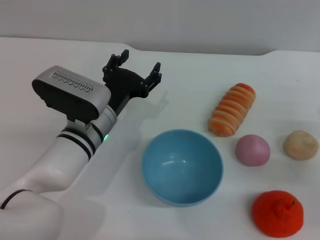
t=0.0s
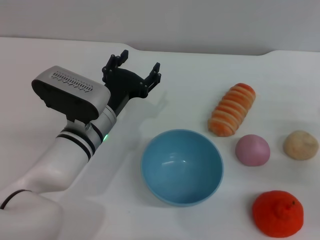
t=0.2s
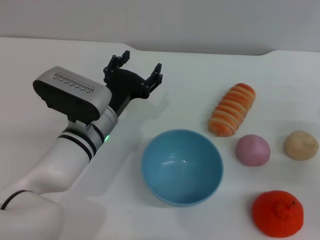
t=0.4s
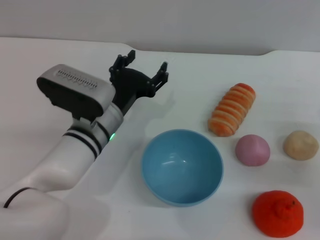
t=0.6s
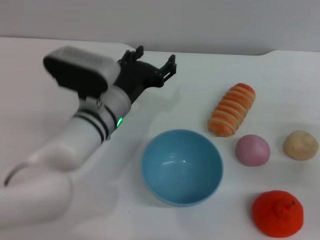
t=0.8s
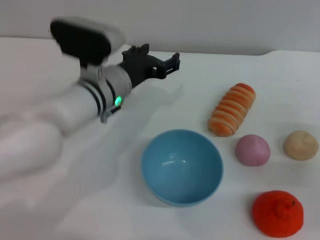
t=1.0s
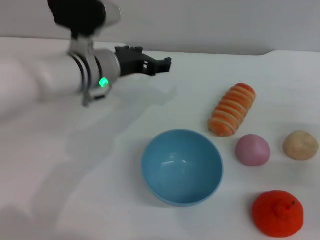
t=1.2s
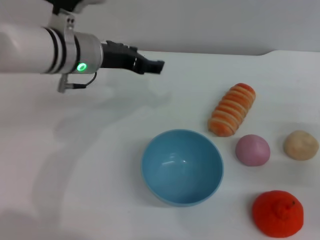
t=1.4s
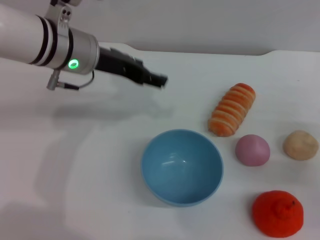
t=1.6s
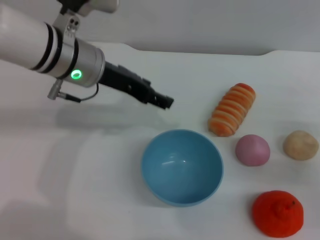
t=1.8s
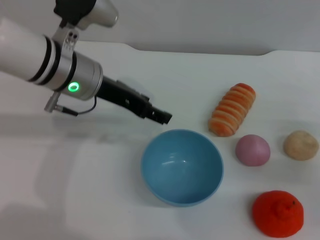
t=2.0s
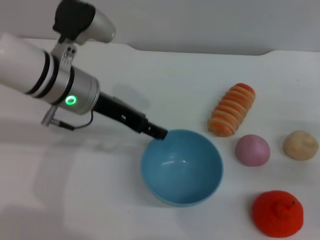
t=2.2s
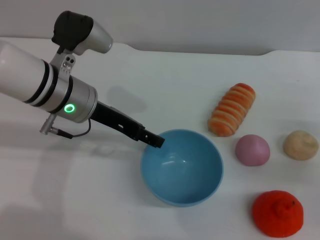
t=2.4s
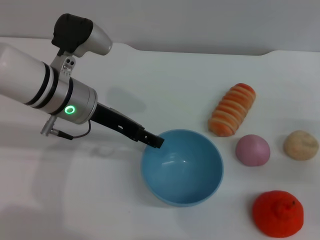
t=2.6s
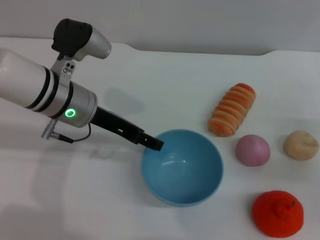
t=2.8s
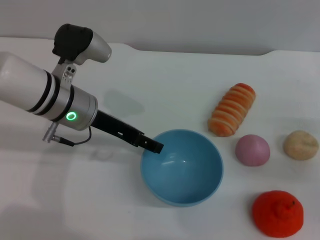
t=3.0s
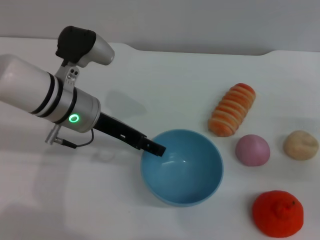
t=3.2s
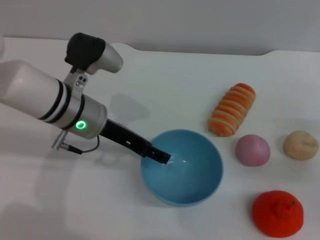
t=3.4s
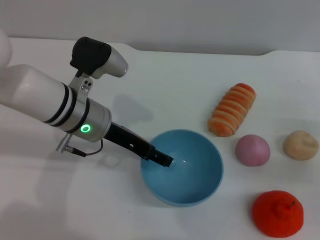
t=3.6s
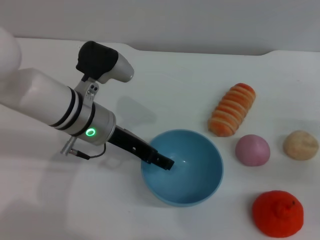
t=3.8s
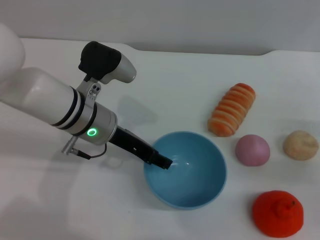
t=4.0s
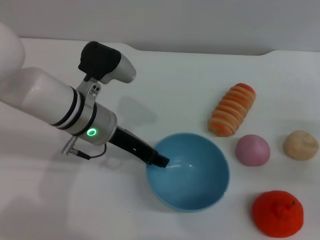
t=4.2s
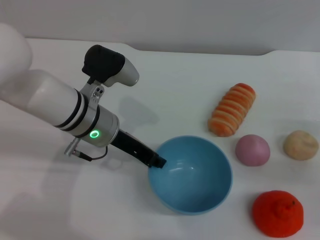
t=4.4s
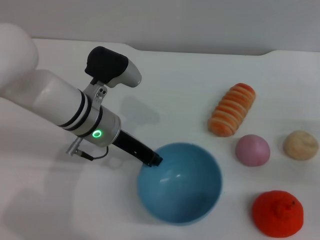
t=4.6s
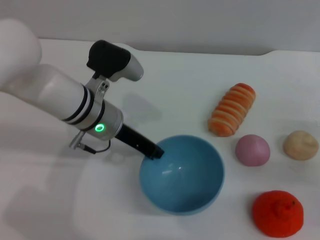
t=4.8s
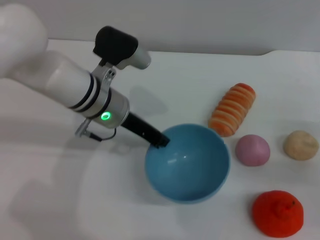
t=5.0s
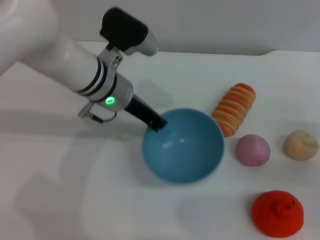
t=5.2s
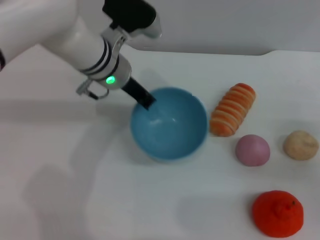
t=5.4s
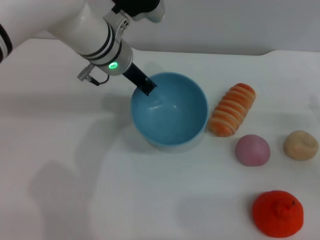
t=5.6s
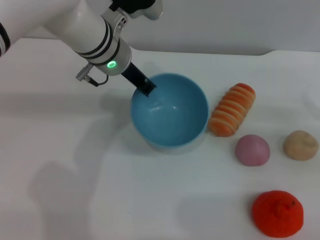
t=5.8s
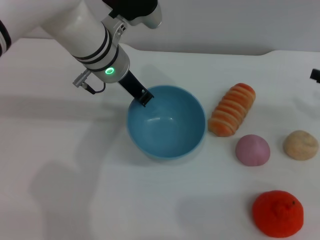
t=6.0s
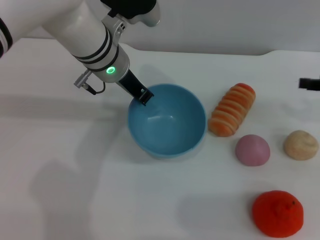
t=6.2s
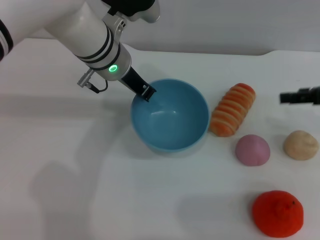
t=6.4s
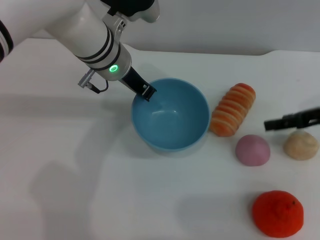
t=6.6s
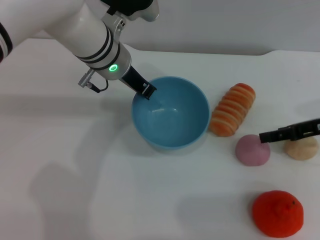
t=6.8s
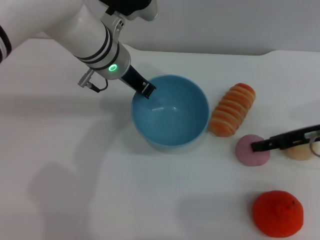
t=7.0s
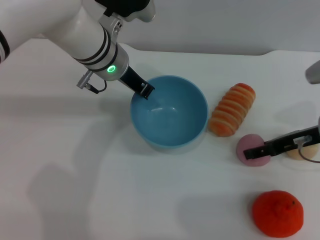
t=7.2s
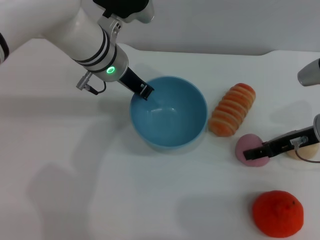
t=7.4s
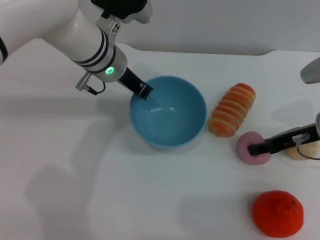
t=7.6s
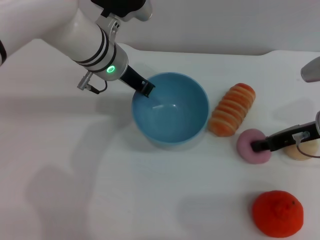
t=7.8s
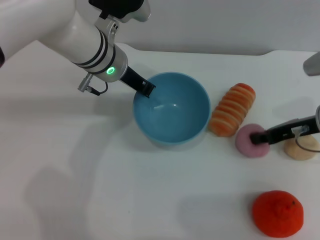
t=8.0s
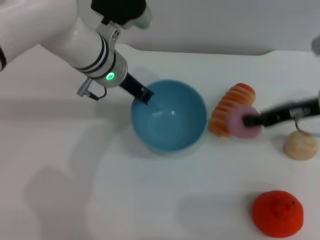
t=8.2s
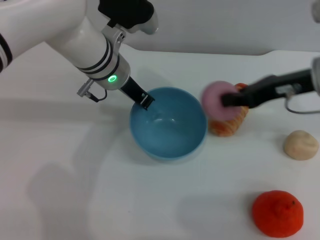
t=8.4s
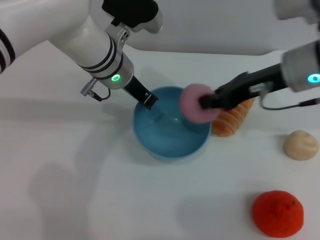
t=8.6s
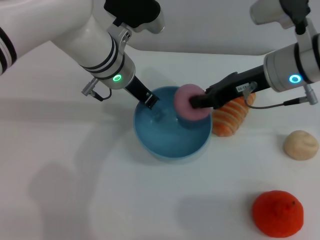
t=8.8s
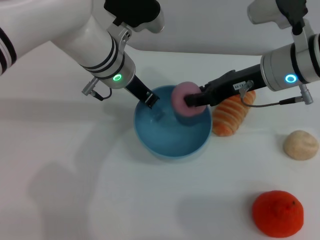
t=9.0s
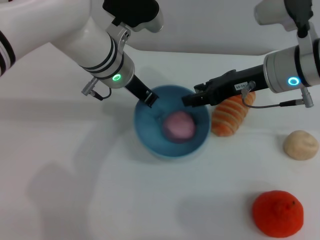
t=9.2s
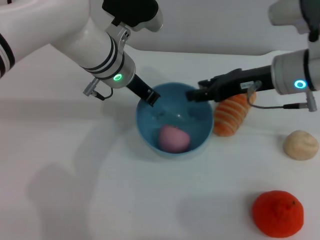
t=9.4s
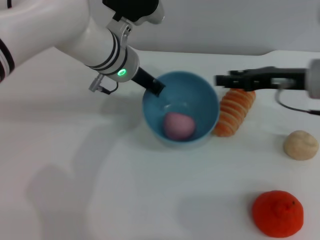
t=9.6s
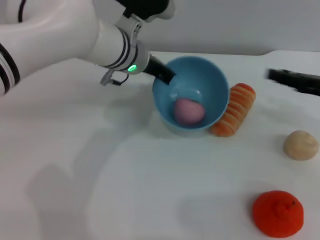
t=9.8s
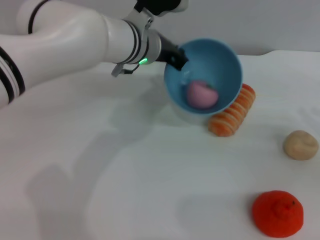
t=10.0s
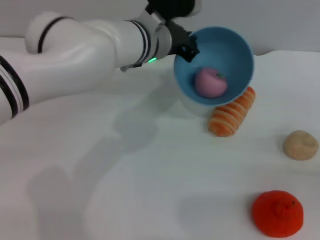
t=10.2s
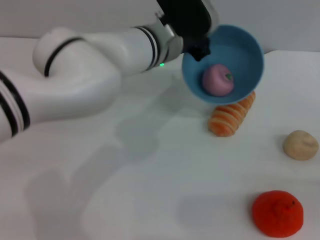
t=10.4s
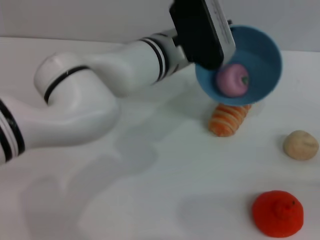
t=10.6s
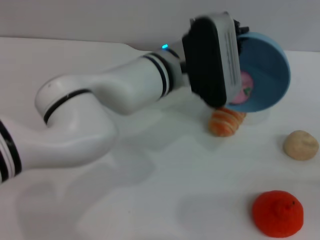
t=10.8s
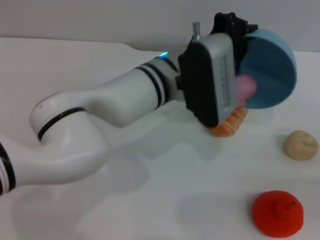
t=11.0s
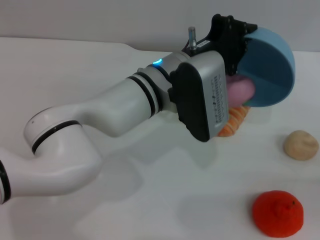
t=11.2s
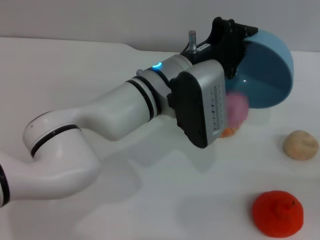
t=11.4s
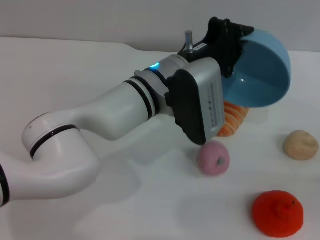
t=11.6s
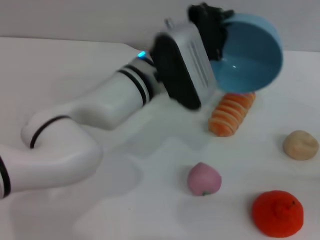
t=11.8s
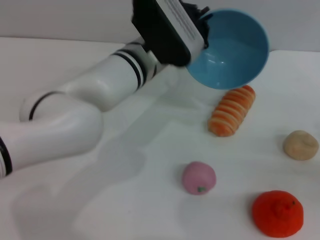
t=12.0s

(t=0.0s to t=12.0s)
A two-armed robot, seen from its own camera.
Task of the whole recording: put the peach into the blue bowl and pour it out repeatedly.
Step, t=0.0s - t=5.2s: Pick up the bowl with the left gripper.
Step, t=5.4s - t=8.2s: Pick up the peach with the right gripper.
Step, t=8.4s - t=9.4s: Place the peach into the bowl.
Step, t=9.6s - t=12.0s: Pour the peach out of bowl.
t=0.0s - t=1.6s: The left gripper moves upward and forward, about 15 cm.
t=1.6s - t=3.0s: The left gripper is displaced downward by approximately 5 cm.
t=3.0s - t=4.4s: The left gripper closes.
t=4.4s - t=6.0s: The right gripper moves upward and forward, roughly 10 cm. Meanwhile the left gripper heads forward and upward, covering some 10 cm, and closes.
t=6.0s - t=7.6s: The right gripper shifts roughly 10 cm to the left.
t=7.6s - t=9.0s: The right gripper shifts approximately 10 cm to the left and upward, and closes its fingers.
t=9.0s - t=10.4s: The left gripper travels to the right by about 5 cm; the right gripper goes about 30 cm to the right, backward and downward, and opens its fingers.

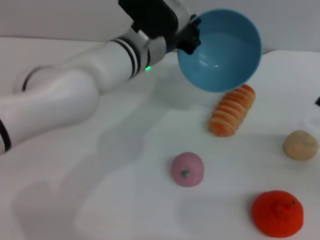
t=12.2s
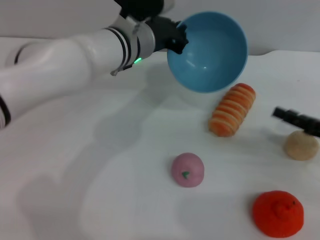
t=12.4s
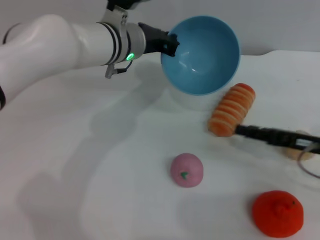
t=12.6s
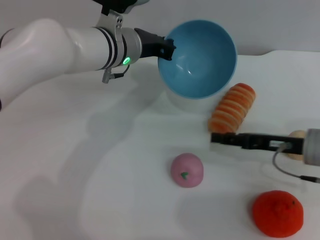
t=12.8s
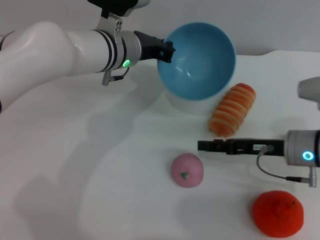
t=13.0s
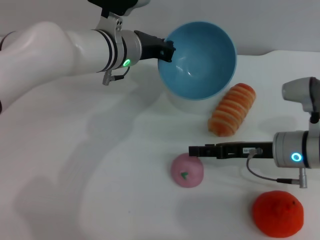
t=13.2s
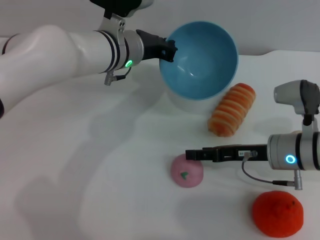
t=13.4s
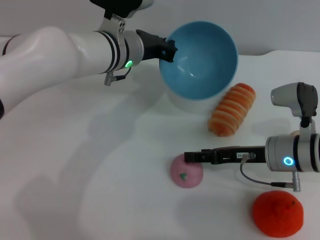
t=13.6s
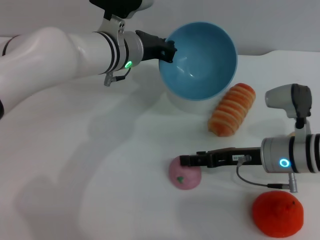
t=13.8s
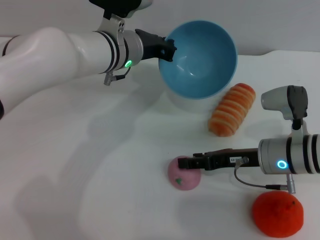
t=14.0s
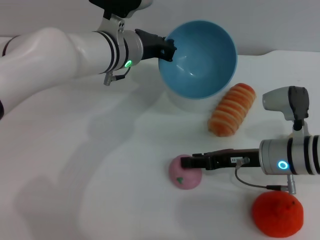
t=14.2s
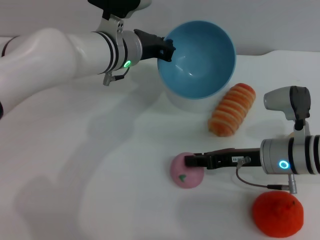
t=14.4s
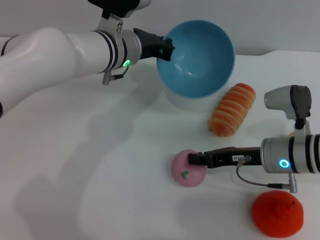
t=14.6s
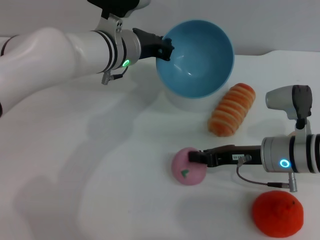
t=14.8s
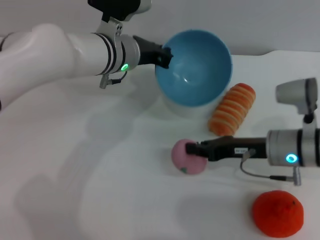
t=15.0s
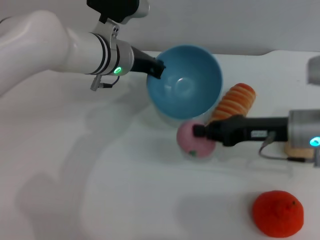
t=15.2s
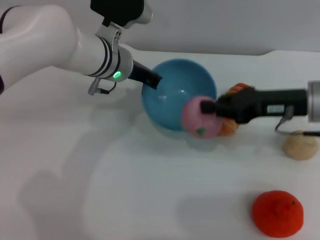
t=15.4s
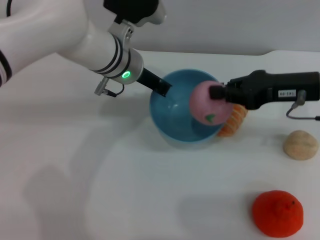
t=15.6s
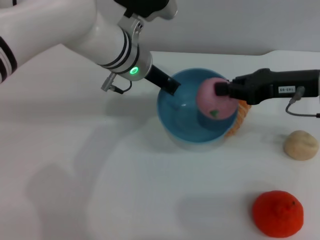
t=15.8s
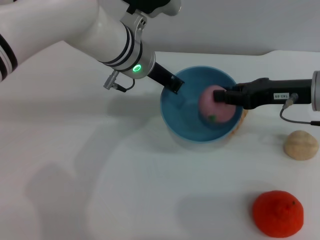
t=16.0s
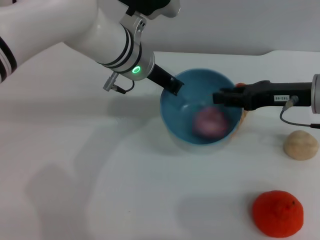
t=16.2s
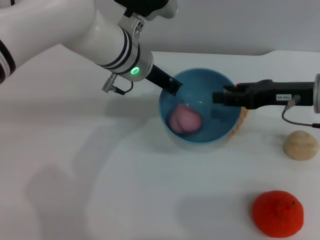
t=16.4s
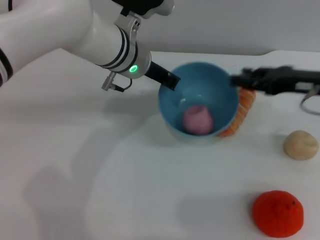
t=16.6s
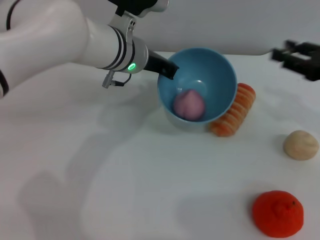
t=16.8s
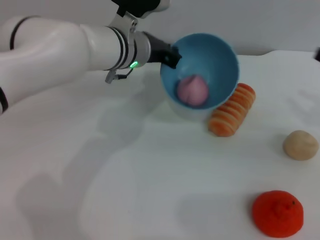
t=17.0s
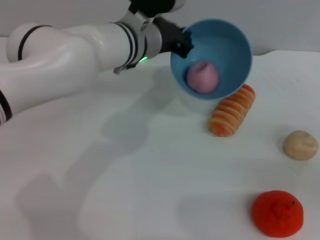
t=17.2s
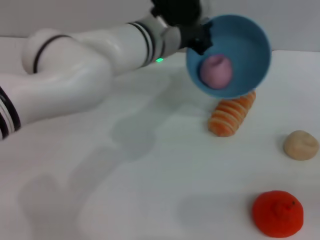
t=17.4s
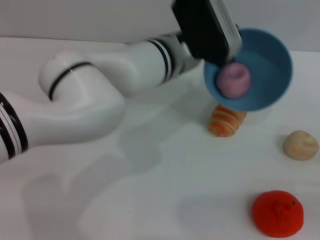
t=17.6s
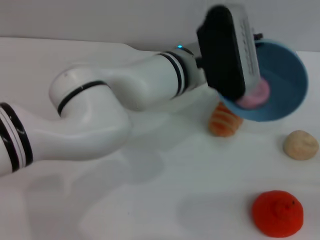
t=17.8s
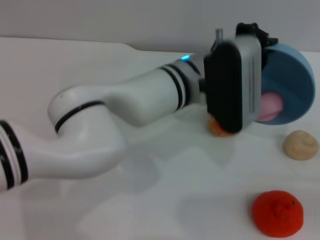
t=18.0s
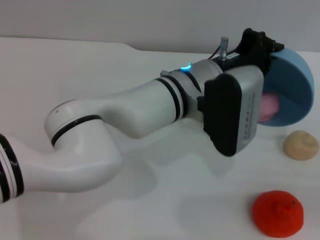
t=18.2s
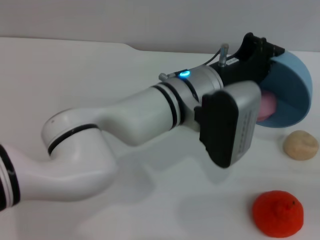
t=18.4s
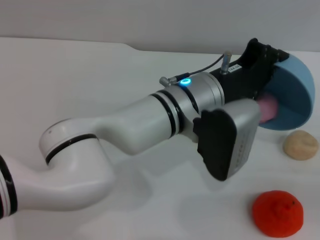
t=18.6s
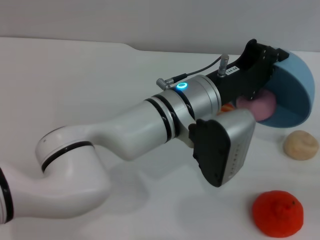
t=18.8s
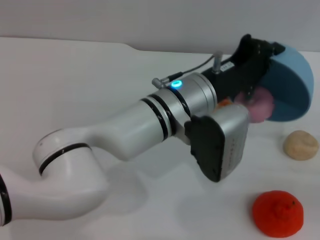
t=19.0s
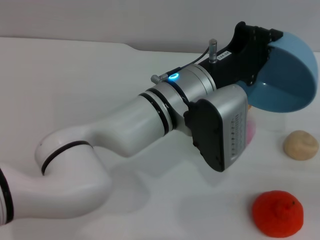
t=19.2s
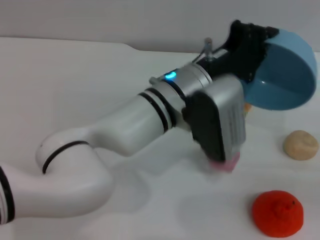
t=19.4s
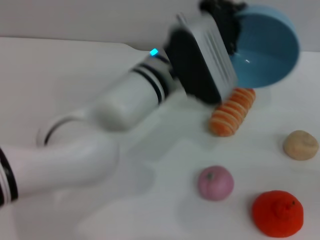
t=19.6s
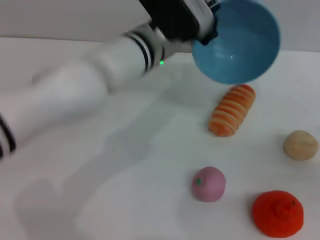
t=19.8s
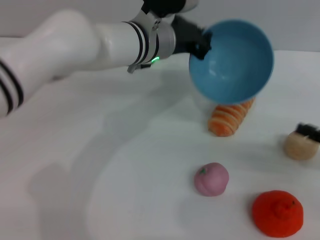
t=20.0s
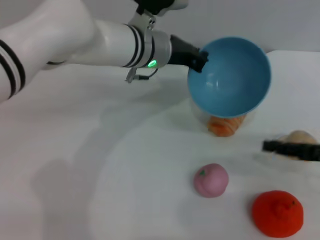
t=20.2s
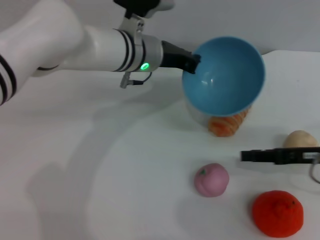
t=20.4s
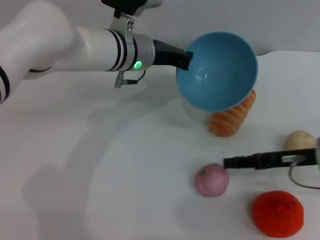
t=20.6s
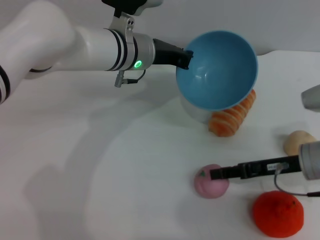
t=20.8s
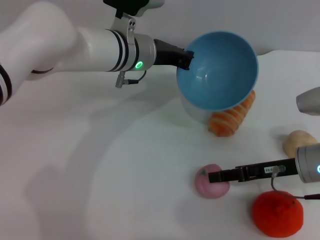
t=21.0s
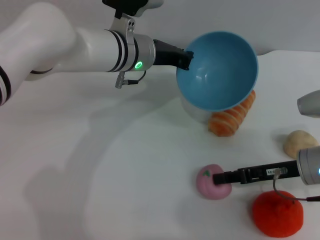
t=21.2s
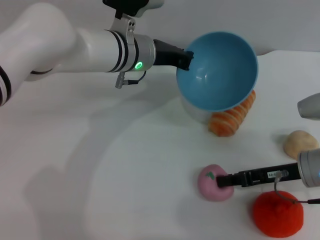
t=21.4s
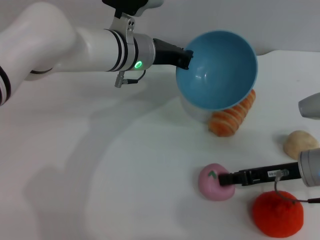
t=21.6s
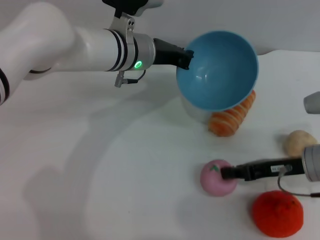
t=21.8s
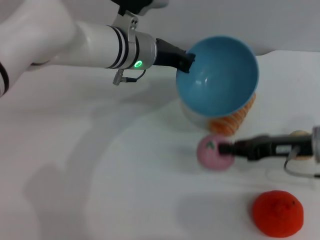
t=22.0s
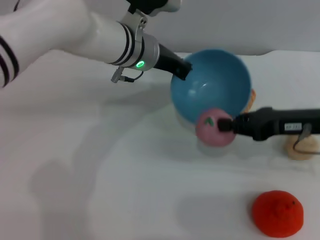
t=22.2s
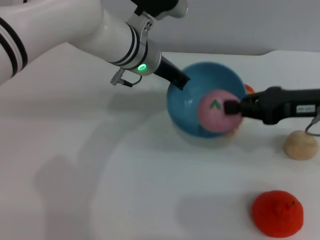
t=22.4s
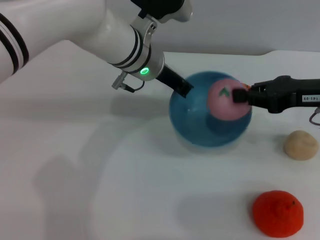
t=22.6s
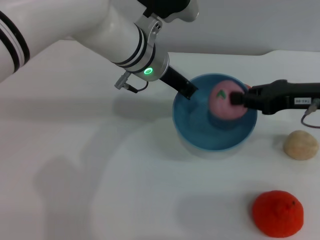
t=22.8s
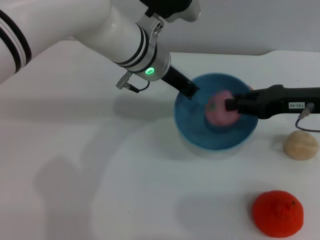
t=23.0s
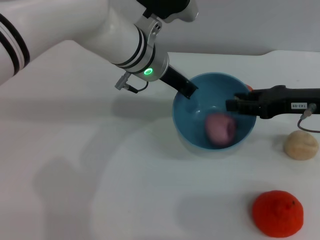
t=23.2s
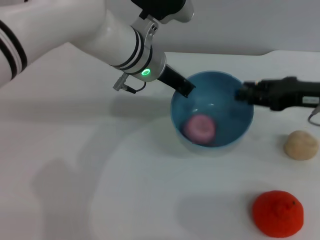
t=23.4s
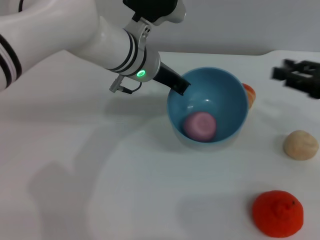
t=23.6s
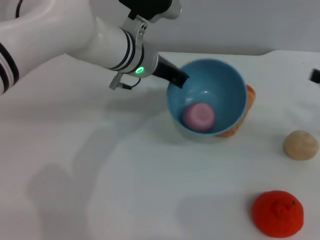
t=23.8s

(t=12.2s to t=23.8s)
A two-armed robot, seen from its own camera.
Task of the whole recording: put the peach into the blue bowl and pour it out repeatedly.
Step, t=12.2s - t=15.2s: Pick up the peach with the right gripper.
Step, t=15.4s - t=16.6s: Place the peach into the bowl.
Step, t=16.8s - t=19.4s: Pour the peach out of bowl.
Step, t=19.6s - t=22.0s: Pick up the peach with the right gripper.
Step, t=22.2s - t=23.4s: Place the peach into the bowl.
t=12.2s - t=13.6s: The right gripper shifts some 15 cm to the left.
t=13.6s - t=15.0s: The right gripper closes.
t=15.0s - t=16.6s: The right gripper goes some 10 cm upward and to the right, and opens.
t=16.6s - t=18.0s: The left gripper is displaced to the right and backward by approximately 10 cm, while the right gripper heads backward, to the right and downward, covering roughly 20 cm.
t=19.4s - t=21.0s: The left gripper travels forward and to the left by some 15 cm. Meanwhile the right gripper shifts approximately 15 cm to the left and forward.
t=21.0s - t=22.4s: The right gripper heads upward, covering some 10 cm, and closes its fingers.
t=22.4s - t=23.8s: The right gripper shifts roughly 10 cm to the right, and opens its fingers.
